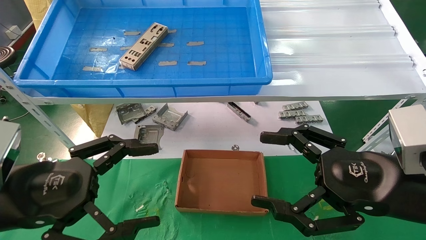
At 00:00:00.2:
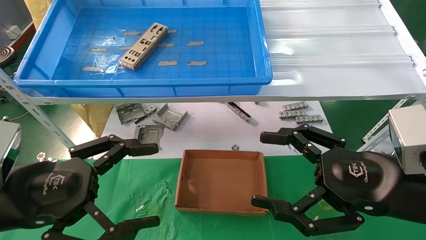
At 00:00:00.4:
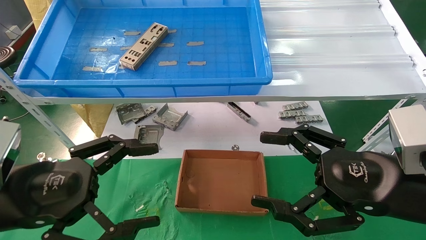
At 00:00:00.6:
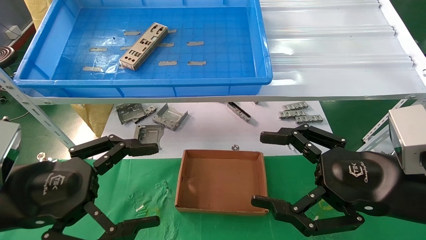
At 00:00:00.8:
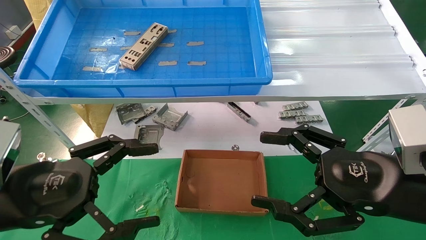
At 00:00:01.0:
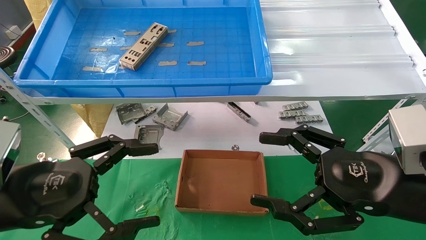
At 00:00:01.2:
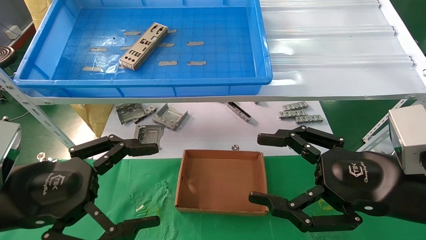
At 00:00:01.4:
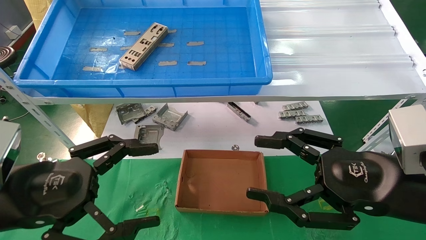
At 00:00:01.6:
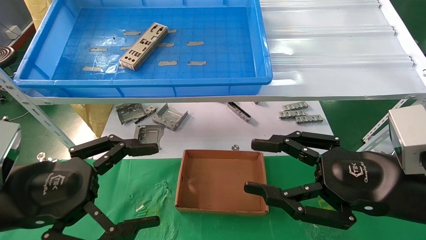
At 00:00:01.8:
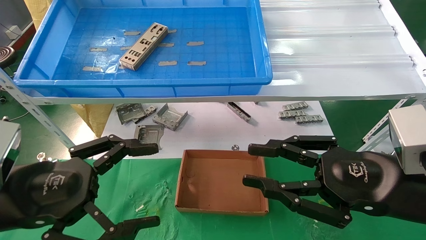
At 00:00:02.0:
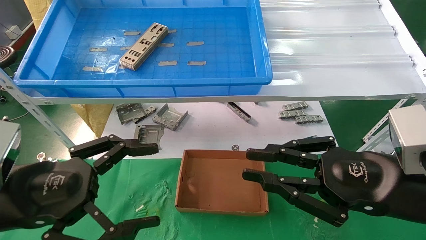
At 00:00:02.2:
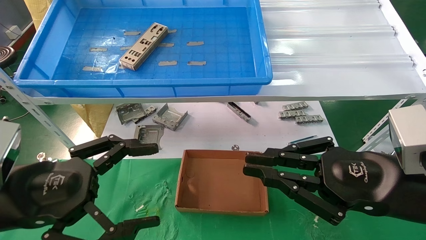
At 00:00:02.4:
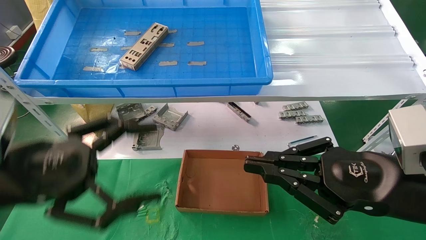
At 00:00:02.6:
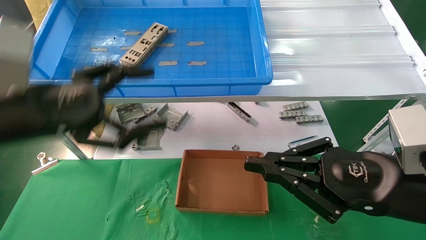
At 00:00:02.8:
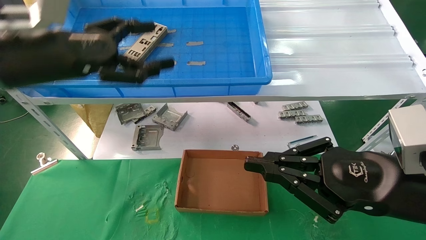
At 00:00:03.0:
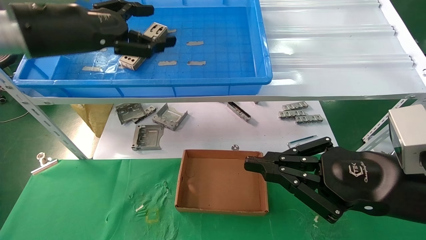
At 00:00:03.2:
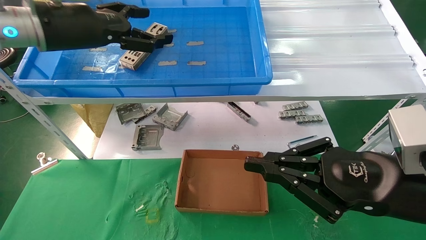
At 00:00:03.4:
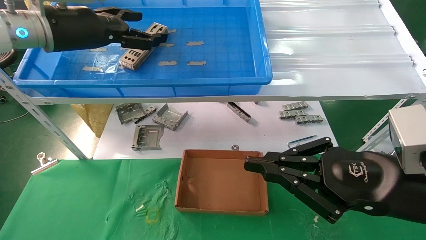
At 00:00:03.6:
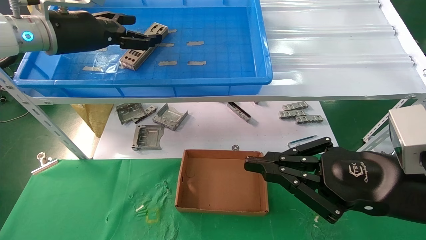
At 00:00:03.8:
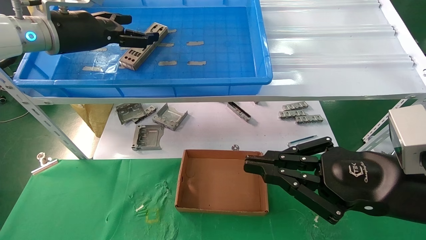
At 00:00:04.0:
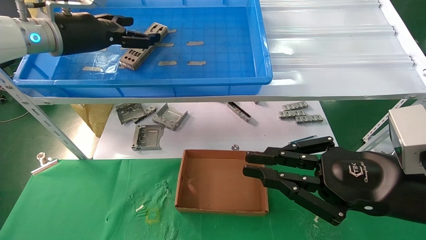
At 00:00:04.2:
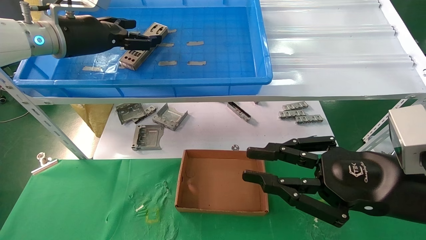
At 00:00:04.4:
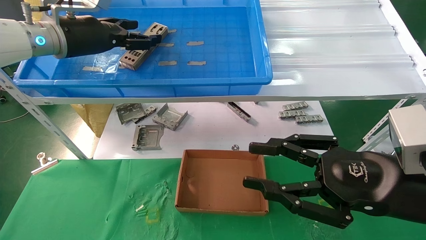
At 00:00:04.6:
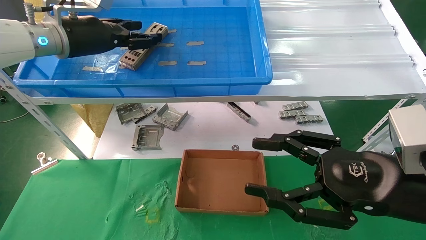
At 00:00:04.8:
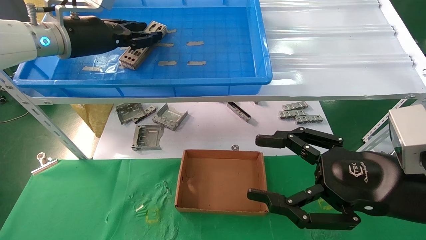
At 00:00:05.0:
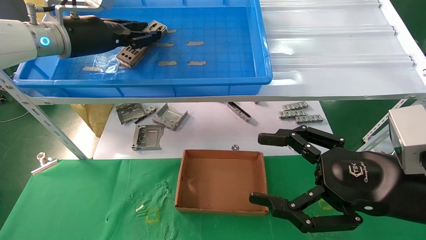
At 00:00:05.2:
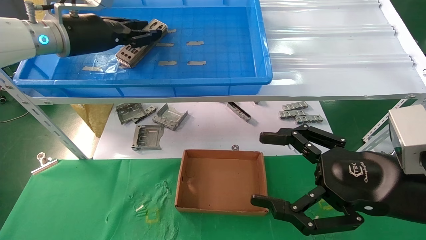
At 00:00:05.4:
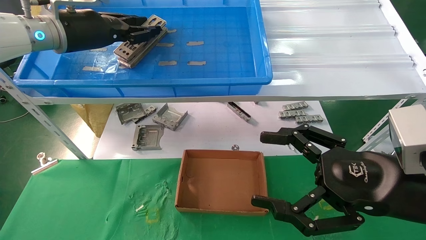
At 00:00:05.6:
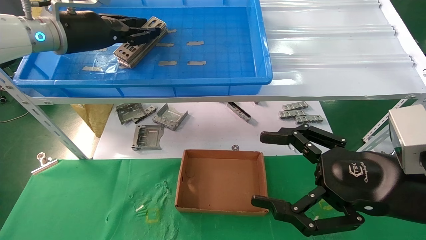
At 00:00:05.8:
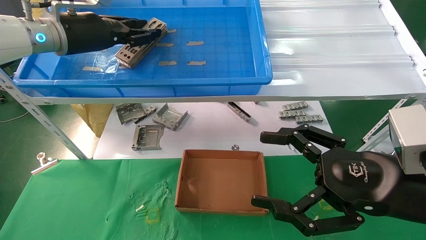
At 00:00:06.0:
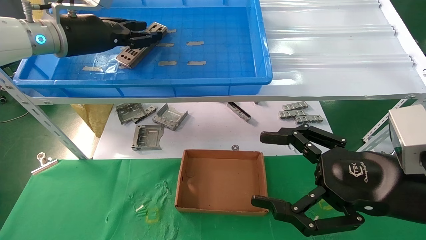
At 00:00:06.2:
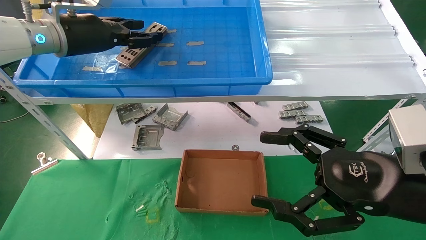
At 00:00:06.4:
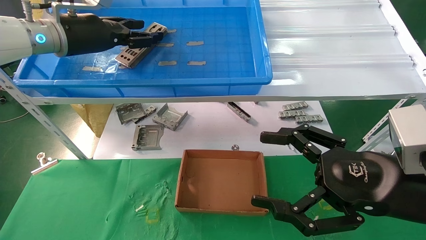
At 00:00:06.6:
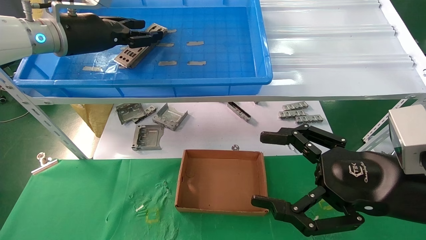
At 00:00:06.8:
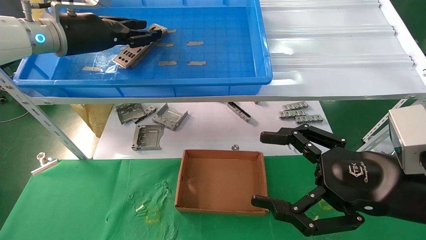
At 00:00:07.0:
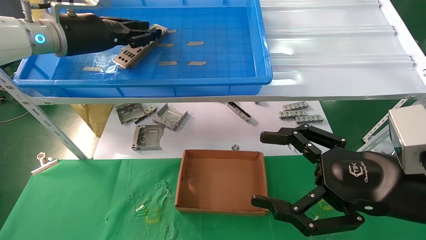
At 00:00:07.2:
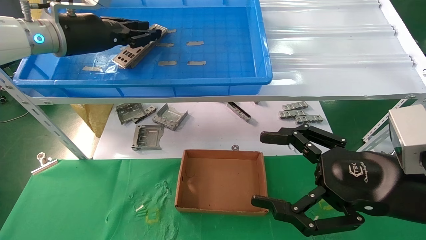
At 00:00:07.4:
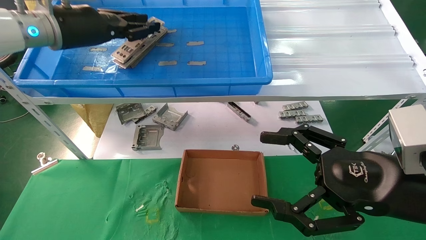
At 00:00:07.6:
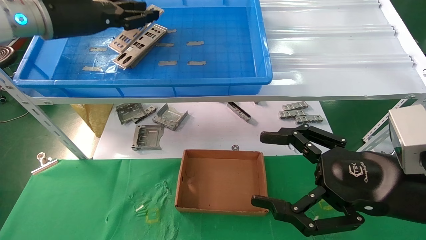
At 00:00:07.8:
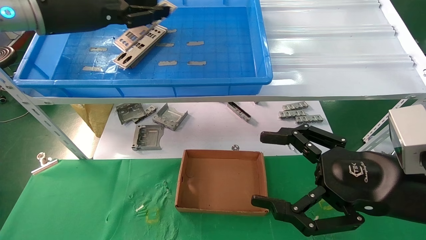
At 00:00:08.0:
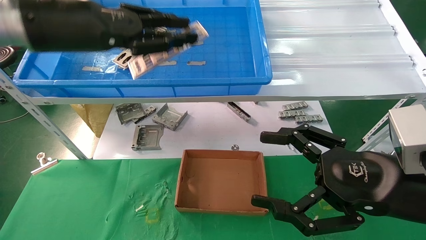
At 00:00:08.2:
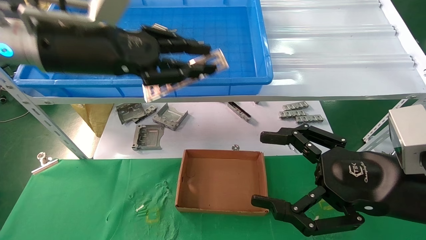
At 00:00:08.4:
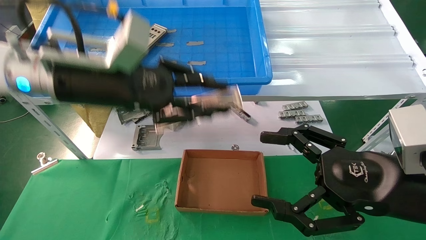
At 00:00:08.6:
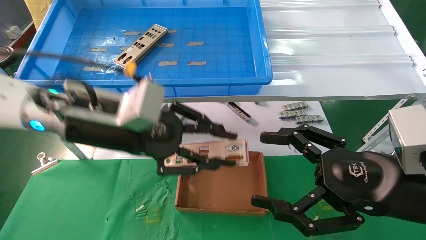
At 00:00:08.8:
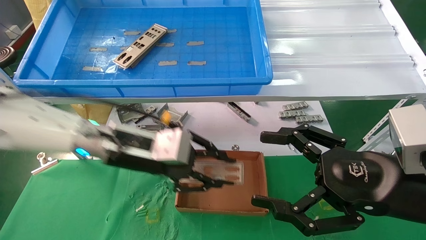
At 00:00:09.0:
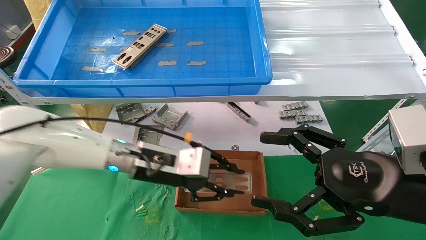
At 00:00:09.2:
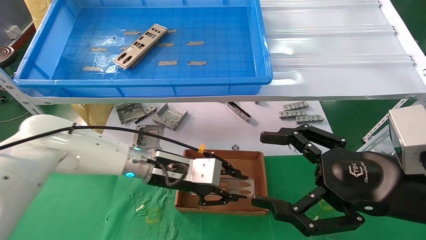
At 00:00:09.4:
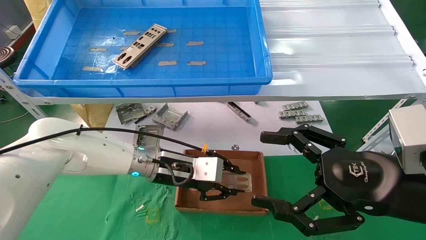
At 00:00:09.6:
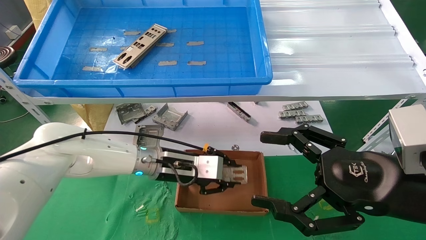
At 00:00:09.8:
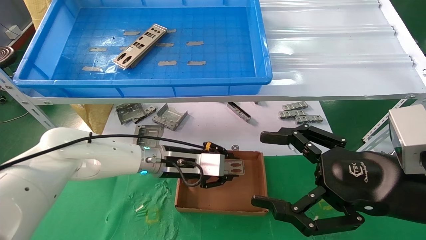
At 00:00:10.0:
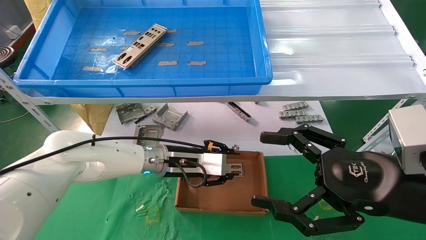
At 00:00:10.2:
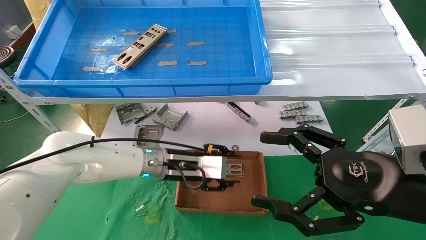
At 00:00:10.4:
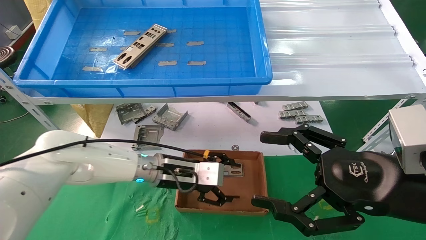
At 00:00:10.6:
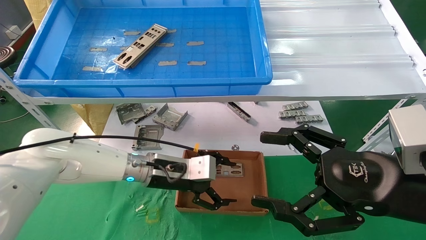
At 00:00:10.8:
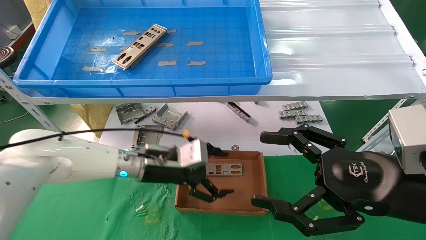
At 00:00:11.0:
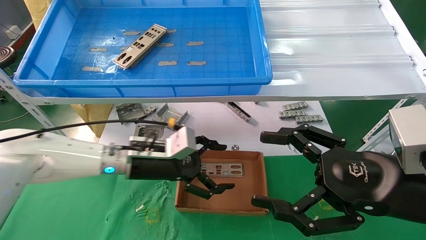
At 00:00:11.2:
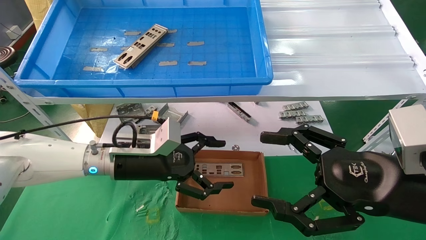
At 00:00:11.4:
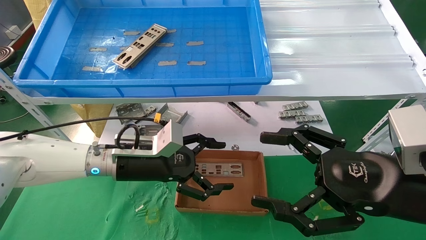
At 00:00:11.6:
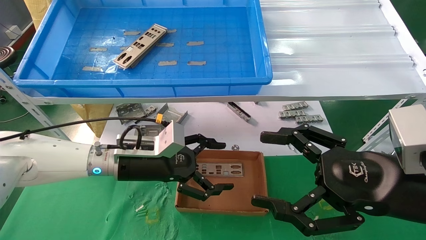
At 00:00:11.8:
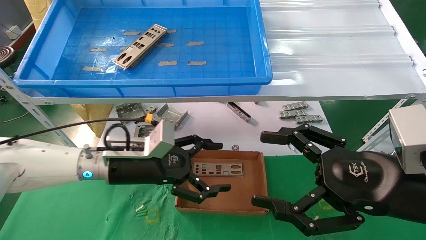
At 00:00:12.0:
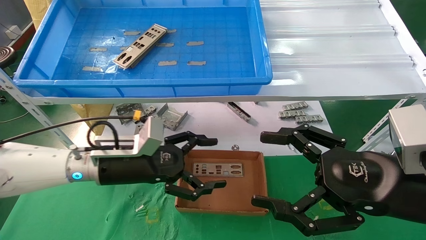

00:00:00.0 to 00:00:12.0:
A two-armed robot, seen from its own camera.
Task of the whole recording: pick up the parts on the tray and put them in the cardboard box.
Step, 00:00:02.6 to 00:00:07.2: Pick up the IO bracket from the container box.
Step, 00:00:07.4 to 00:00:10.6: Place the IO bracket into the ingredient slot.
00:00:00.0 to 00:00:01.6: Both grippers stay about where they are.
00:00:01.6 to 00:00:03.0: The left gripper moves upward and forward, roughly 25 cm, while the right gripper closes.
00:00:03.0 to 00:00:04.4: The left gripper is displaced forward by approximately 10 cm.
00:00:04.4 to 00:00:06.0: The right gripper opens up. Meanwhile the left gripper closes.
00:00:06.0 to 00:00:07.6: The grippers make only small movements.
00:00:07.6 to 00:00:09.0: The left gripper goes some 25 cm downward and to the right.
00:00:09.0 to 00:00:10.4: The left gripper is displaced downward by some 5 cm, and opens.
00:00:10.4 to 00:00:12.0: The left gripper shifts roughly 10 cm to the left and backward, and opens its fingers.

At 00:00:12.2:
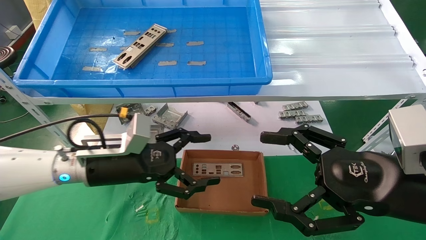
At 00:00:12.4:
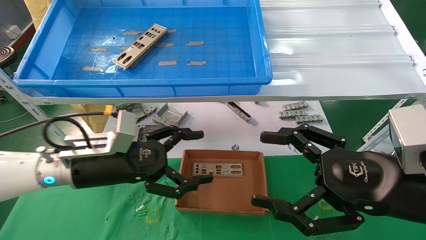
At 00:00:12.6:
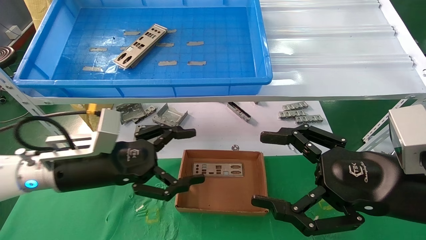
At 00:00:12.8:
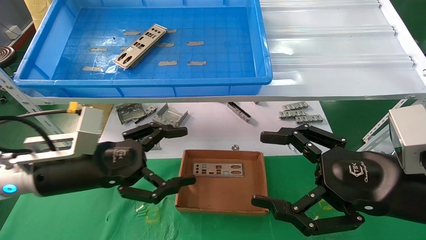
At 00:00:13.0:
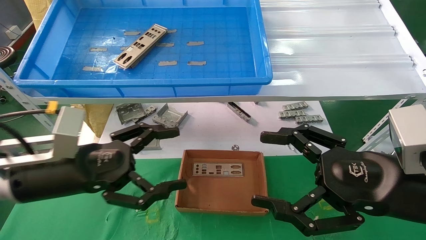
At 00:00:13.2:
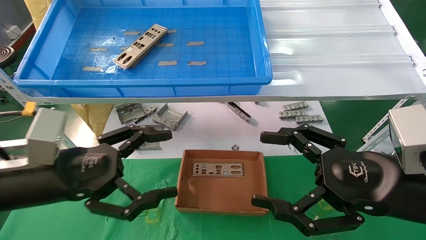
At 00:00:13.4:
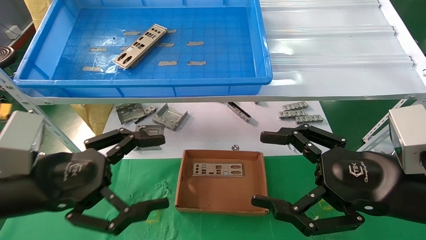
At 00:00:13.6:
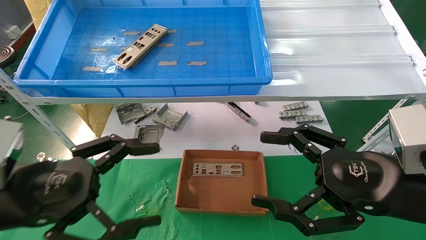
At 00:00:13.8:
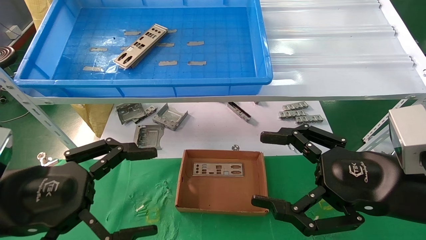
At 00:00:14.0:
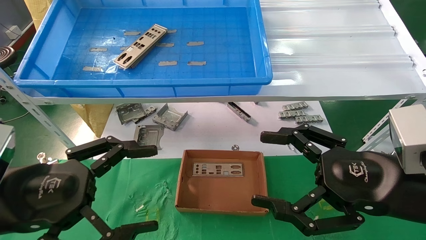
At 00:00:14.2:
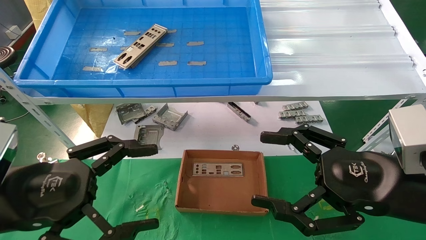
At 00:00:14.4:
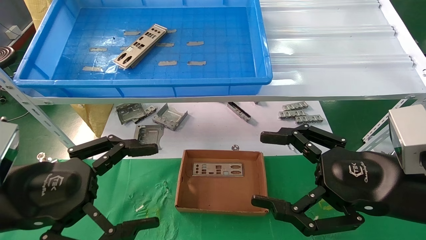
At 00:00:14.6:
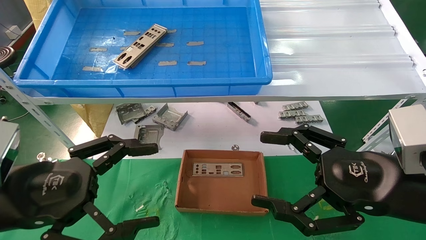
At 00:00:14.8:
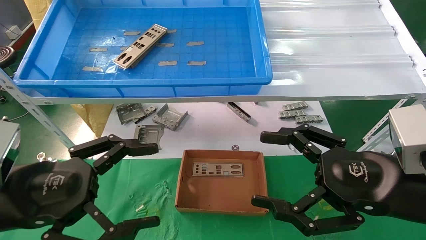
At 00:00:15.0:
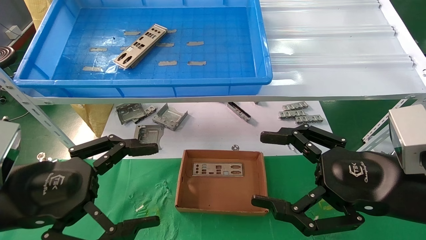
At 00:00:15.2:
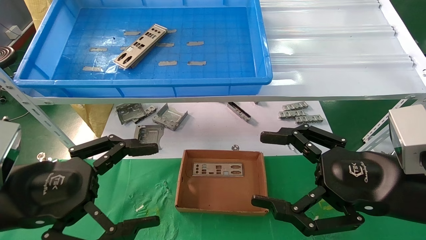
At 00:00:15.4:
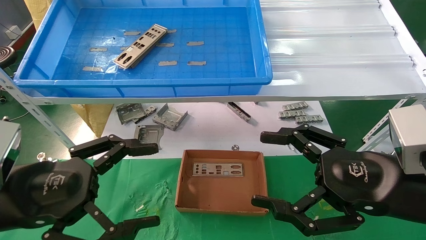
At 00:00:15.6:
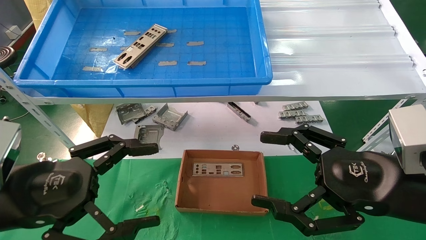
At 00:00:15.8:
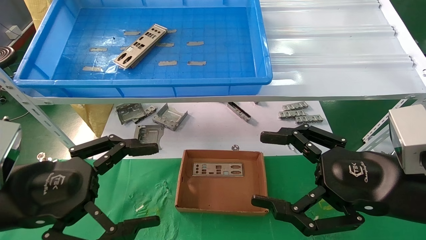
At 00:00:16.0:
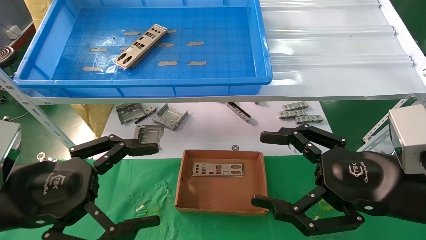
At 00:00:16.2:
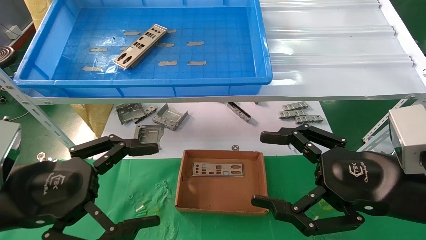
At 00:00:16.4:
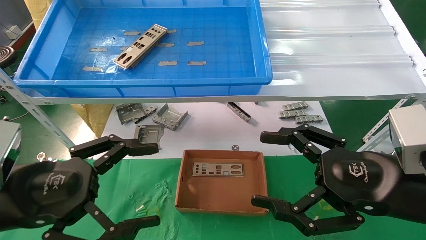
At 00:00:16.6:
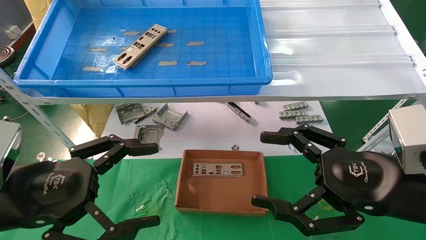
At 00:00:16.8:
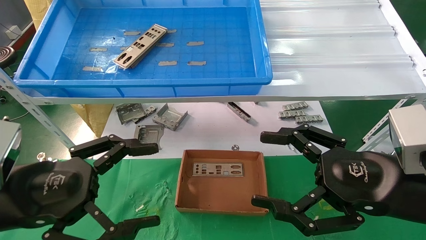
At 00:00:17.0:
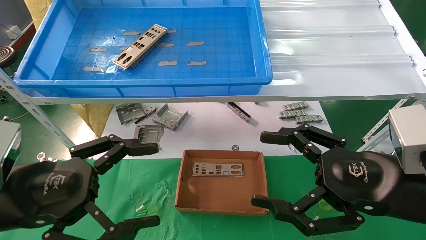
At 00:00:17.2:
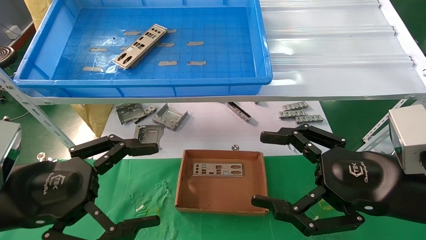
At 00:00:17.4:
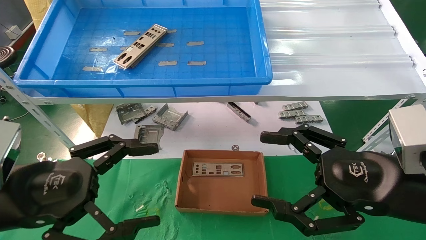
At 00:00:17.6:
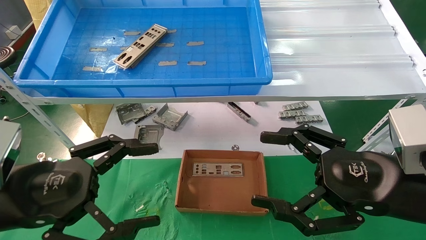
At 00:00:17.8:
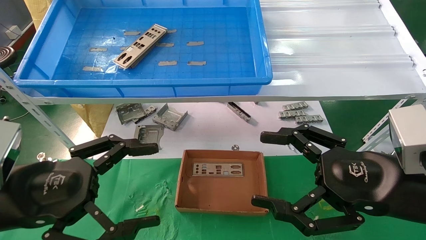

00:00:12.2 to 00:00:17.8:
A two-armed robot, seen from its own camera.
Task of the whole recording: pick up the parts on the tray and put them in the cardboard box.
00:00:12.2 to 00:00:13.6: The left gripper heads backward and to the left, covering approximately 15 cm.
00:00:13.6 to 00:00:17.8: The two grippers keep their place.
